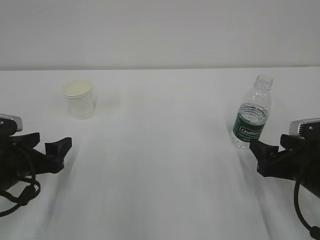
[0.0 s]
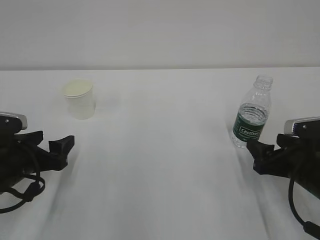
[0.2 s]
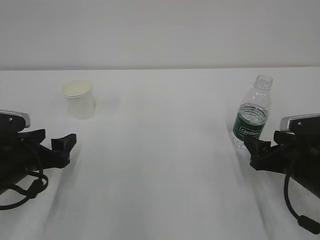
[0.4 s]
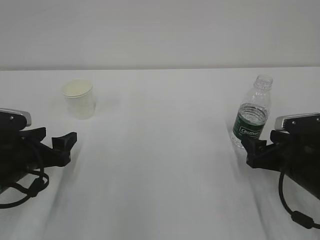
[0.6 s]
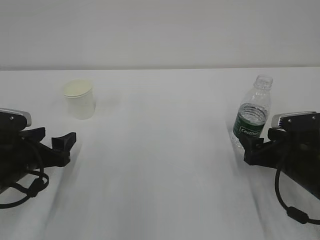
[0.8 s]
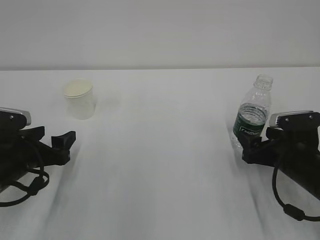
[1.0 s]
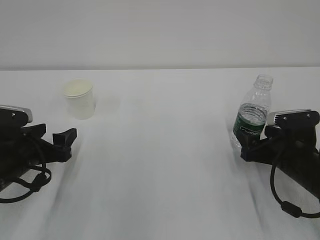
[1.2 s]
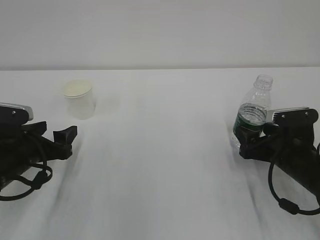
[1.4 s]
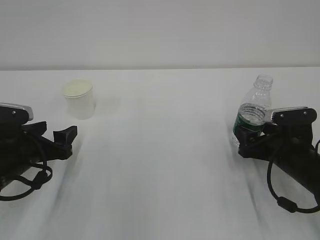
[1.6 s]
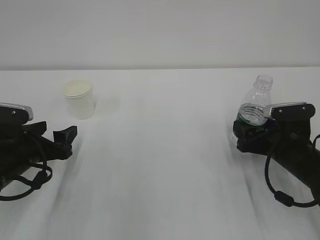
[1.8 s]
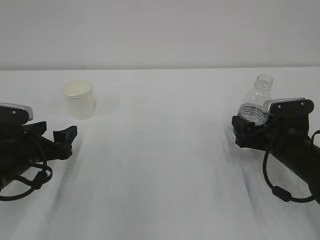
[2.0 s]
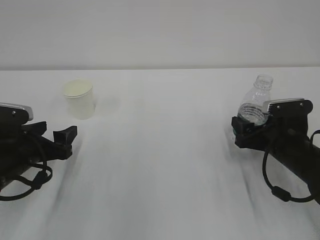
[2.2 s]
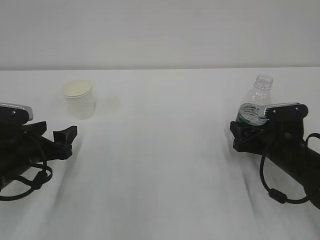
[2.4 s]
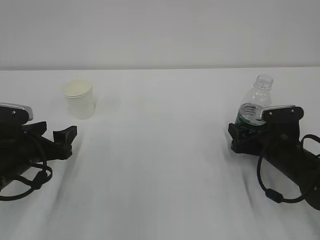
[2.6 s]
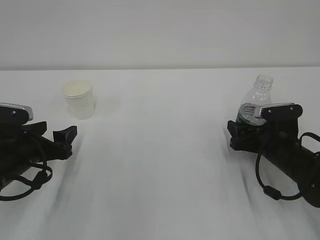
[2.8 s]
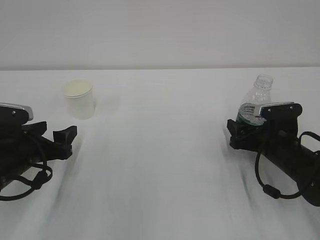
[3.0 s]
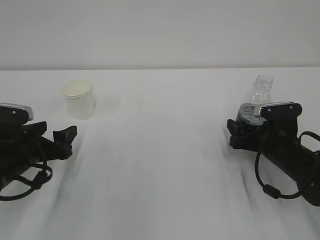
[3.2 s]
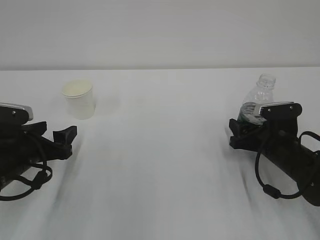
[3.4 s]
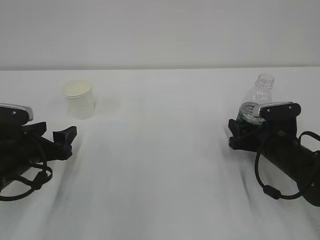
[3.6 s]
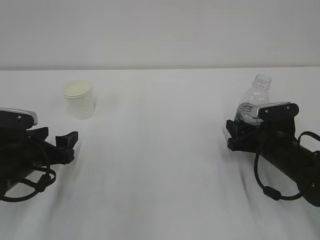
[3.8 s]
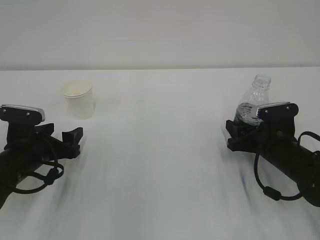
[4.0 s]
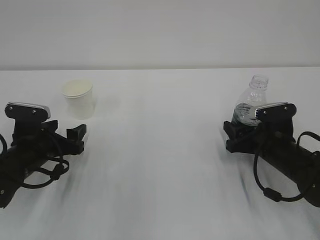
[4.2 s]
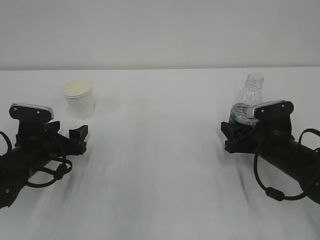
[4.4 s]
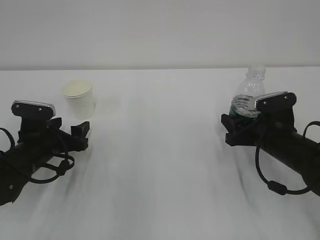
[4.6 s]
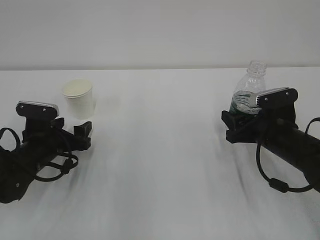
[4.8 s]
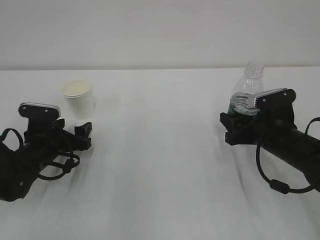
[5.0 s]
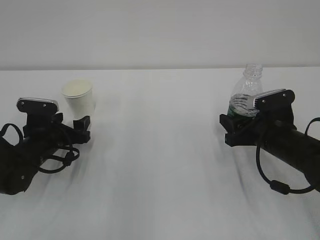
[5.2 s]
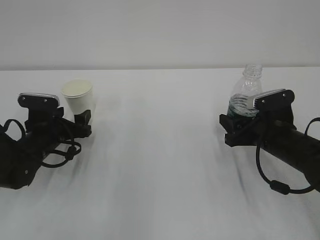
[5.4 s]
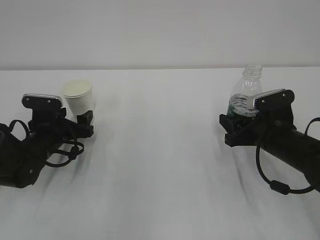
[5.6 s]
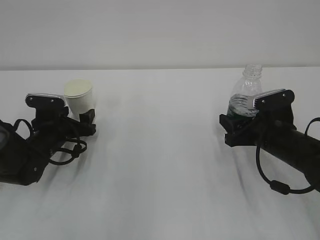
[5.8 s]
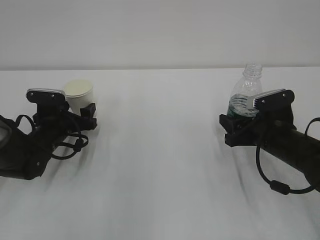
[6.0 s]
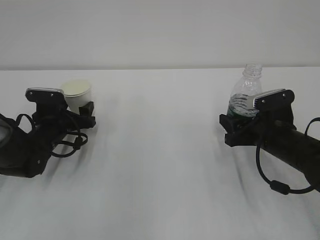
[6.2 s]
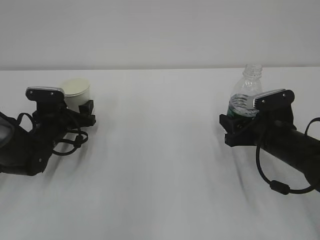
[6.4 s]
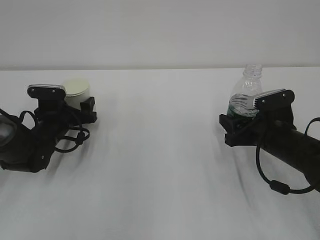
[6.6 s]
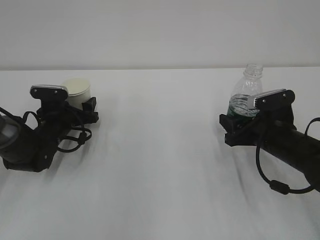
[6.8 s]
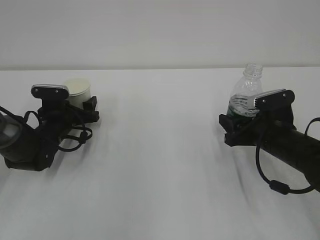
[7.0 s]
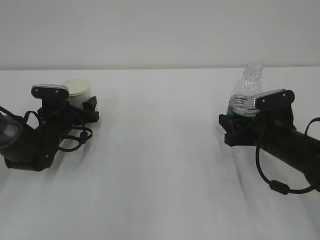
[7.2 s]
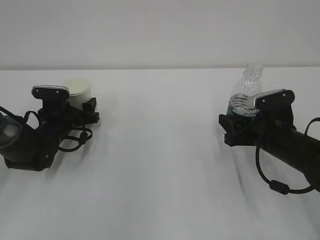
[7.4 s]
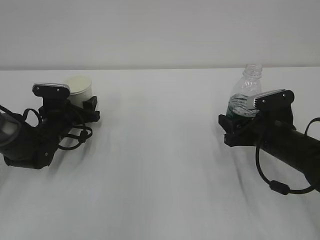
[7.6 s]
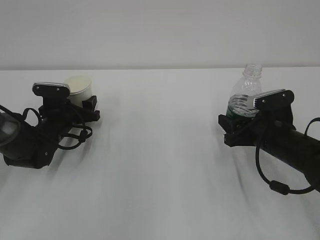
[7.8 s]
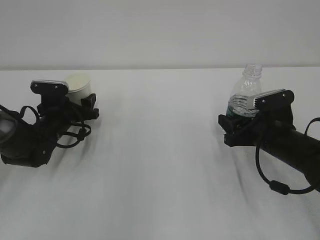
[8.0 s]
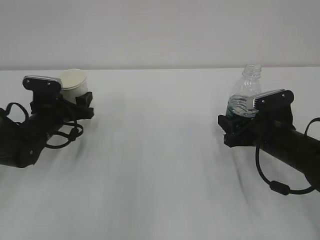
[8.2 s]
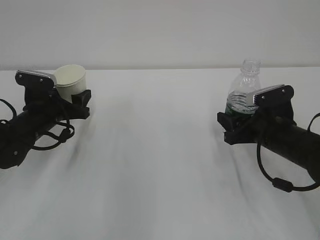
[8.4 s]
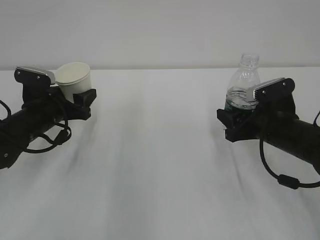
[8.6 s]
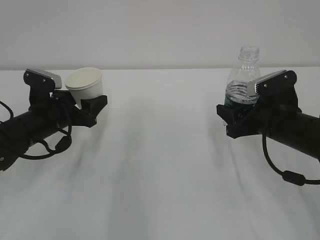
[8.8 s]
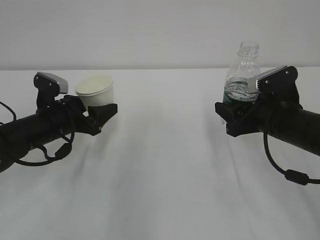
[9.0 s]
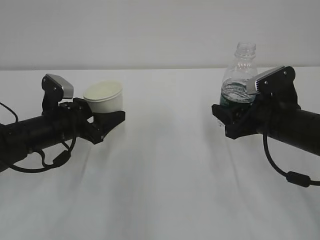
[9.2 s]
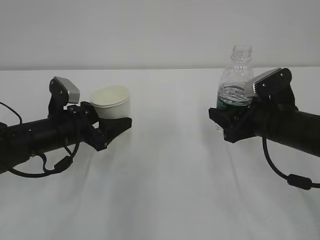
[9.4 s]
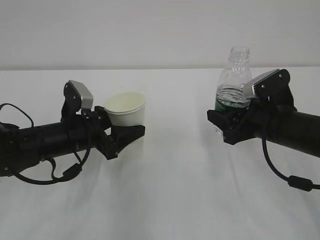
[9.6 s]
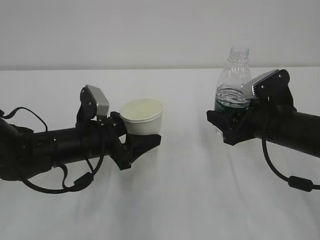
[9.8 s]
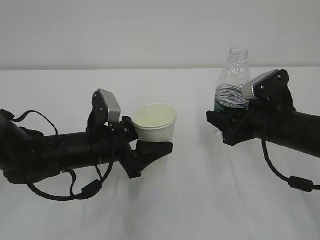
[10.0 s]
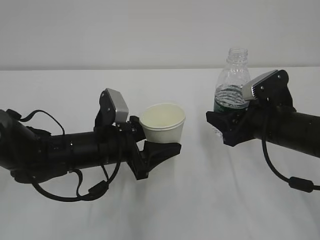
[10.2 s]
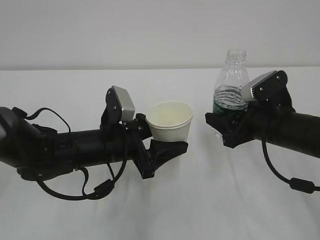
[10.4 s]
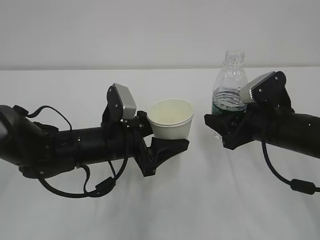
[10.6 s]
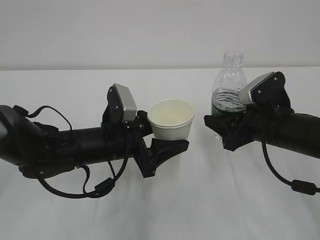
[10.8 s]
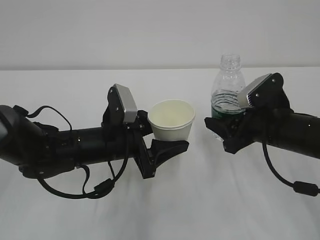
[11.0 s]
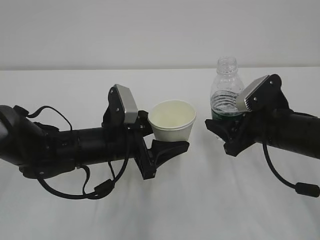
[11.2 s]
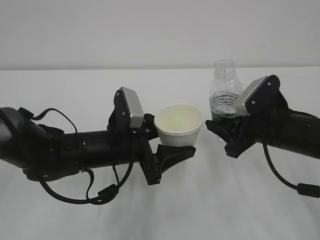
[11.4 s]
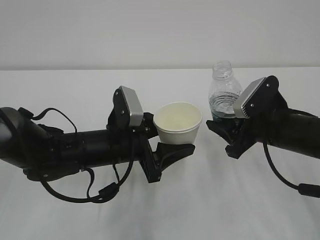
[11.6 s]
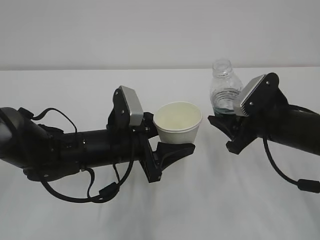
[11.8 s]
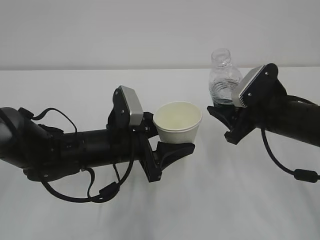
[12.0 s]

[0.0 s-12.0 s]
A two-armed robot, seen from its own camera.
0.0 to 1.6 s: The right gripper heads forward, covering about 5 cm.
1.6 to 3.0 s: The grippers stay close to where they were, moving slightly.
3.0 to 4.4 s: The left gripper changes place by about 5 cm, while the right gripper closes.
4.4 to 6.0 s: The left gripper moves forward, roughly 5 cm.
6.0 to 7.6 s: There are only small adjustments of the grippers.
7.6 to 9.0 s: The left gripper travels backward and upward by some 10 cm. Meanwhile the right gripper travels upward by some 5 cm.
9.0 to 10.4 s: The left gripper moves to the right and backward, approximately 15 cm.

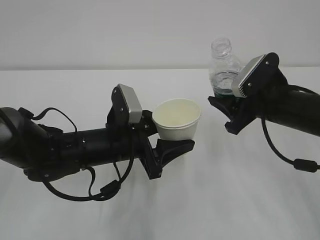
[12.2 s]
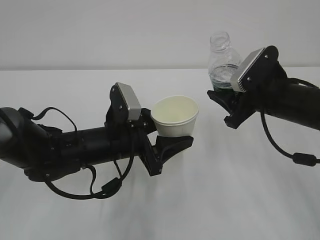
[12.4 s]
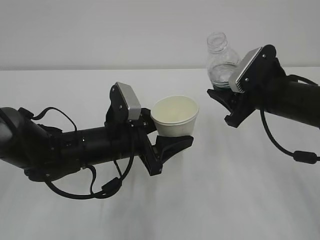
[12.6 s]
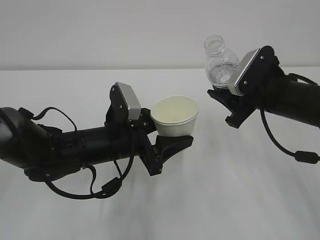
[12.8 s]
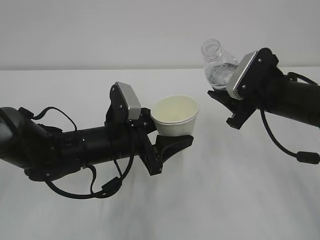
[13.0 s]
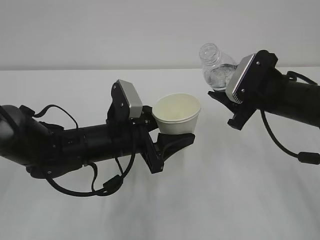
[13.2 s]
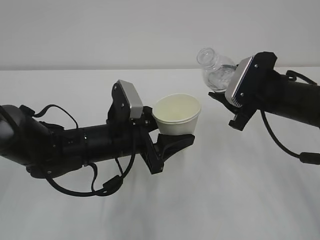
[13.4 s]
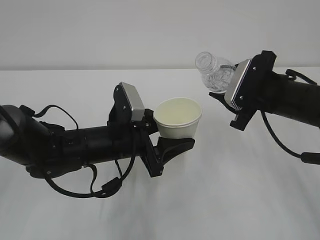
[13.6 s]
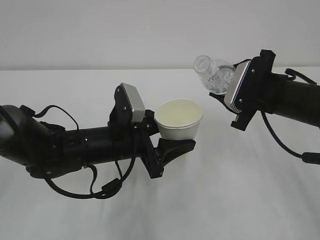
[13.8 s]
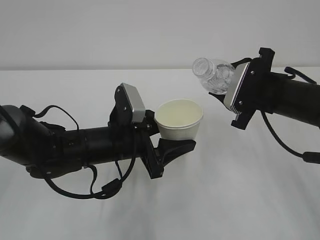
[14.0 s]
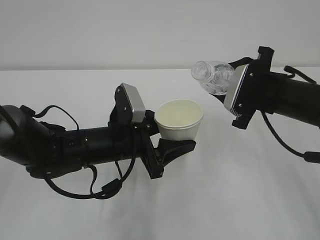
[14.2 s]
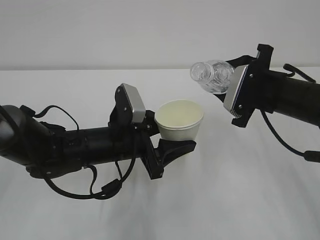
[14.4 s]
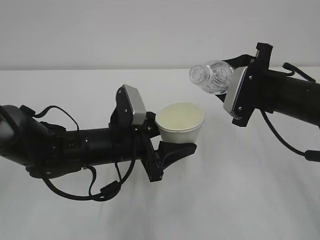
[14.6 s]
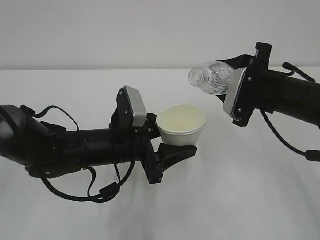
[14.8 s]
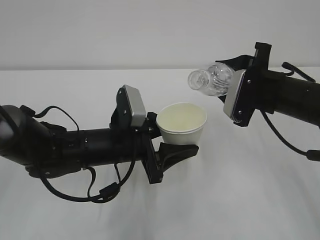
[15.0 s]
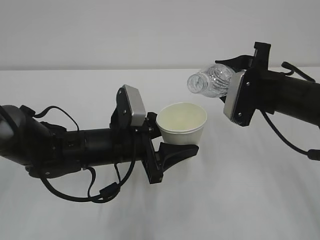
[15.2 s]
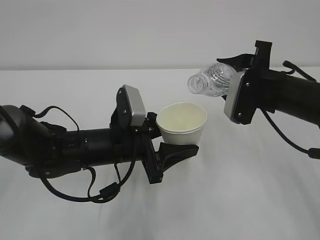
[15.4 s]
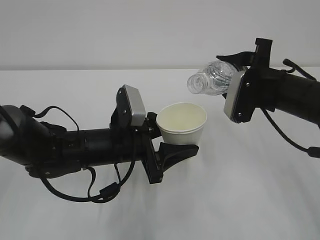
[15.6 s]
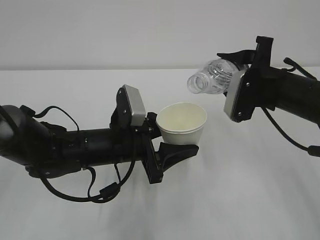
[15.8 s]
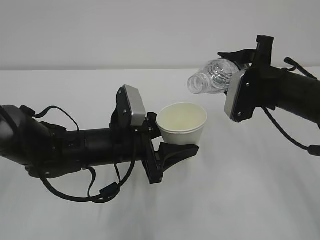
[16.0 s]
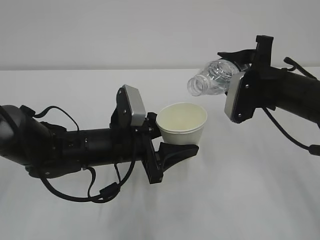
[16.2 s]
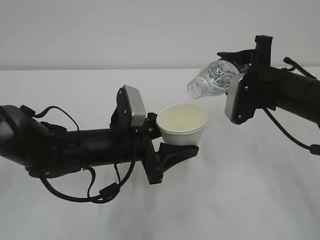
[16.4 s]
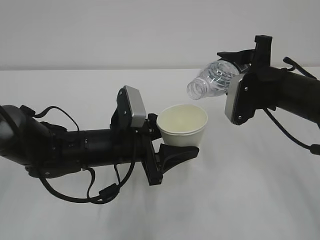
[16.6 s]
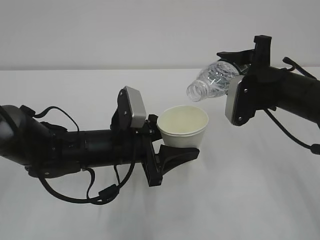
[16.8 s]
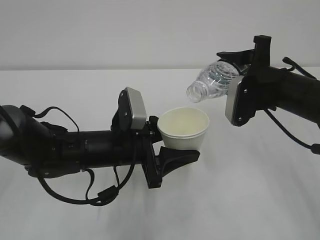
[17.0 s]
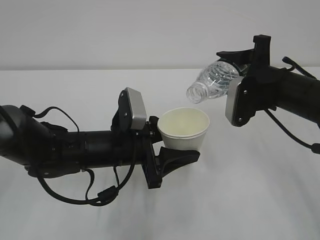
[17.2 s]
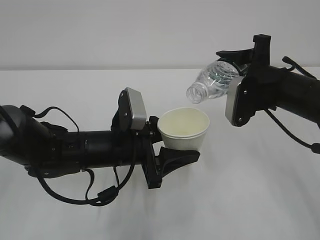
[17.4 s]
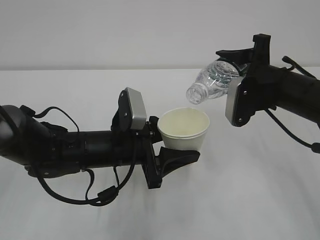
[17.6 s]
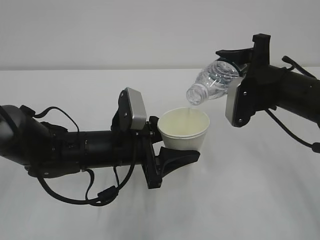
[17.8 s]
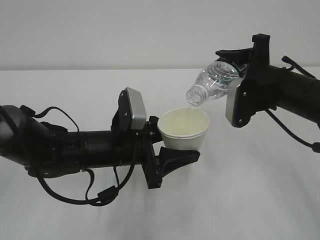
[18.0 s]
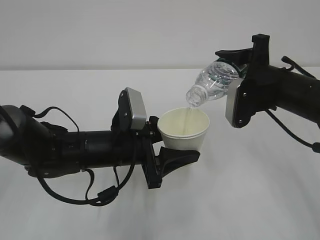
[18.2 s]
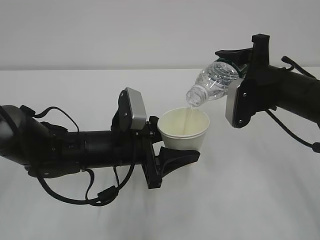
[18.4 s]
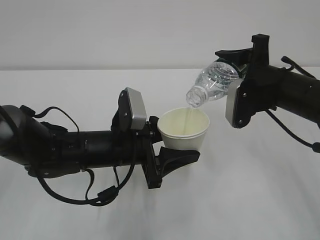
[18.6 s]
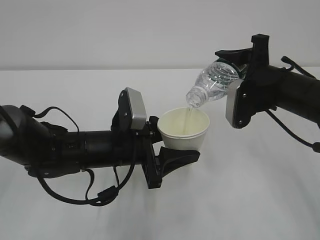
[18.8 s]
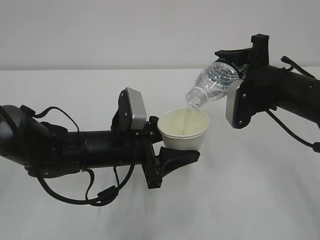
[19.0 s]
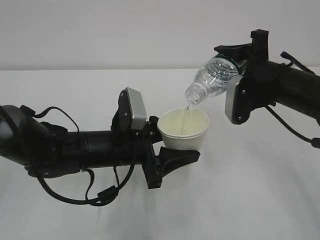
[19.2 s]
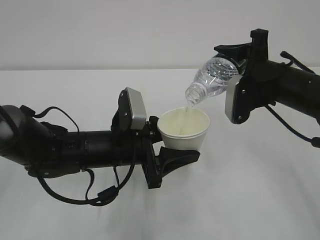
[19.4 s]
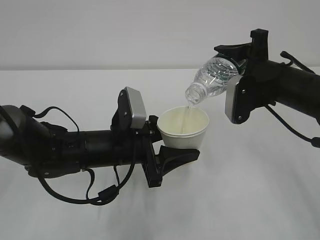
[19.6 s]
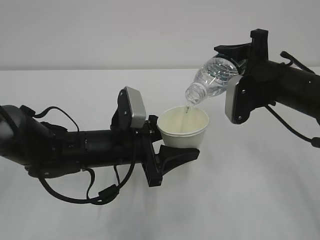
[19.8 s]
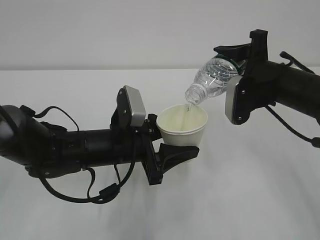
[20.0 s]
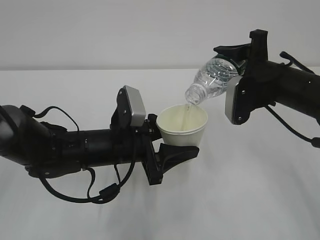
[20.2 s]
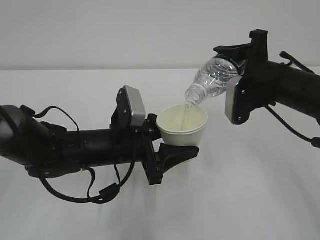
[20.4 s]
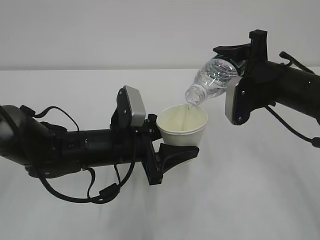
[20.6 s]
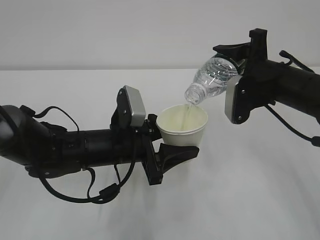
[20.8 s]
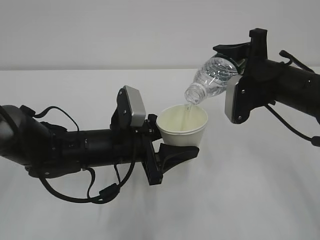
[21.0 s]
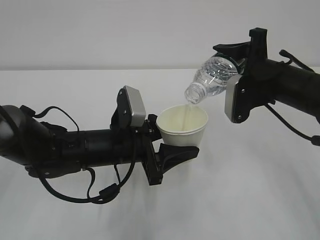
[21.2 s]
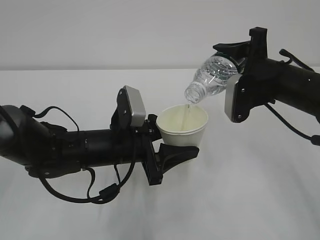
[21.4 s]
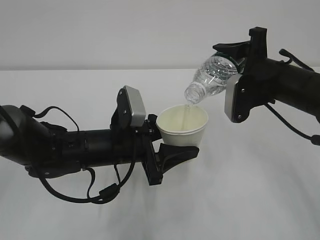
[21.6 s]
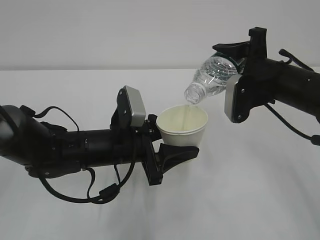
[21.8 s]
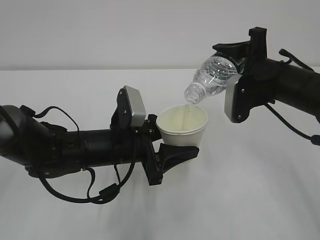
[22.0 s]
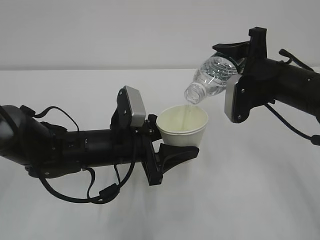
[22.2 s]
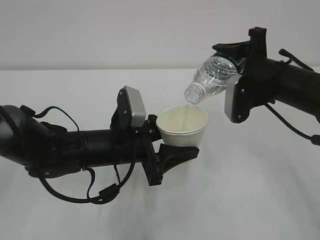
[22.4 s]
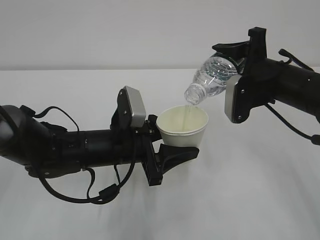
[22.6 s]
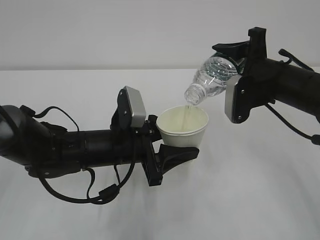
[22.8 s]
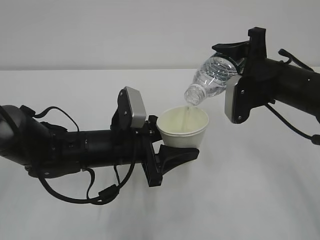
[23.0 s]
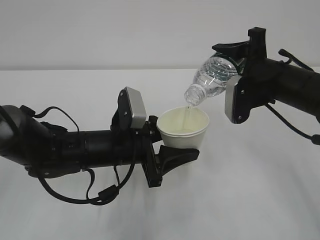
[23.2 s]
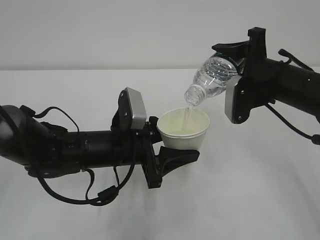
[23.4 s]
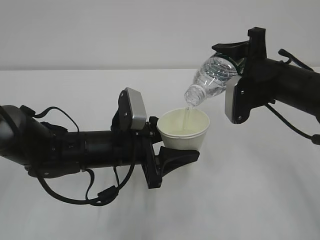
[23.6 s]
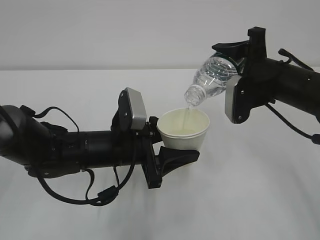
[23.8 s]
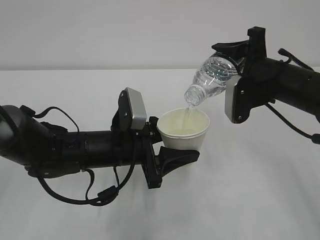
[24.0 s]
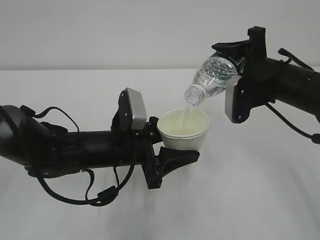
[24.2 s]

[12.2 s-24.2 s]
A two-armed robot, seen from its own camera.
13.8 to 15.2 s: The grippers stay close to where they were, moving slightly.
15.2 to 18.2 s: There are only small adjustments of the grippers.
18.2 to 22.6 s: Neither gripper changes place.
22.6 to 24.2 s: The two grippers keep their place.
